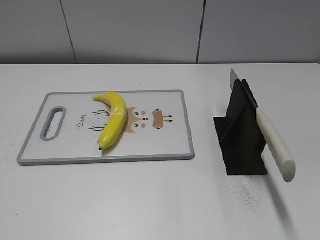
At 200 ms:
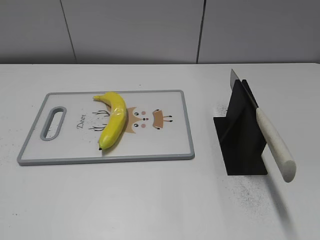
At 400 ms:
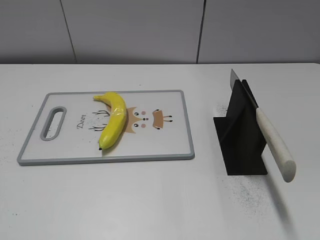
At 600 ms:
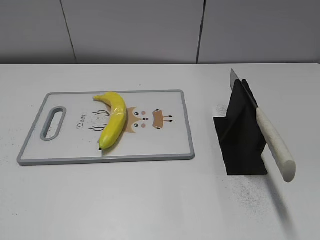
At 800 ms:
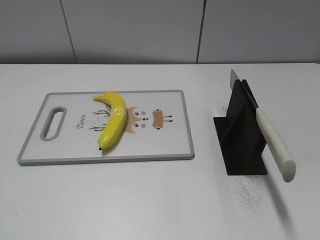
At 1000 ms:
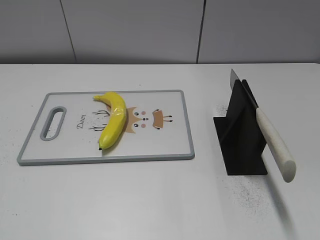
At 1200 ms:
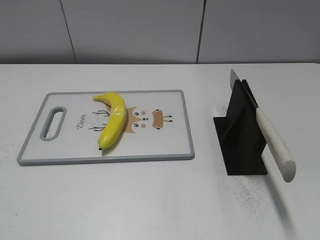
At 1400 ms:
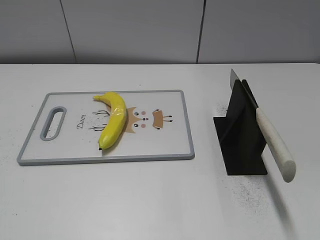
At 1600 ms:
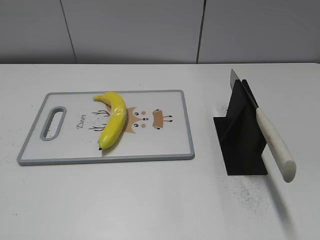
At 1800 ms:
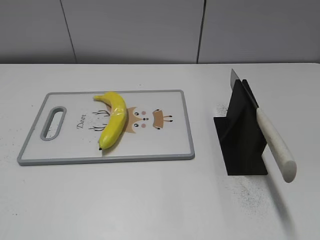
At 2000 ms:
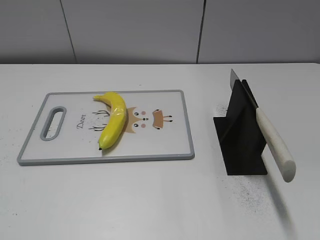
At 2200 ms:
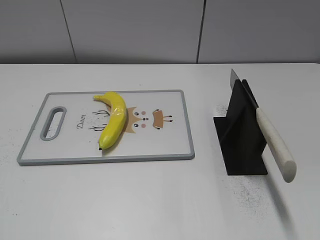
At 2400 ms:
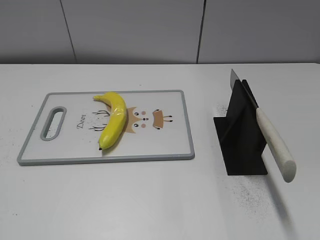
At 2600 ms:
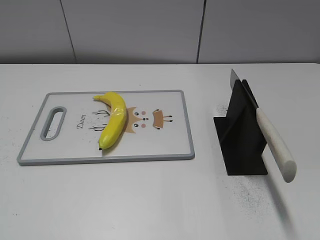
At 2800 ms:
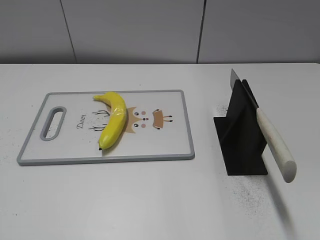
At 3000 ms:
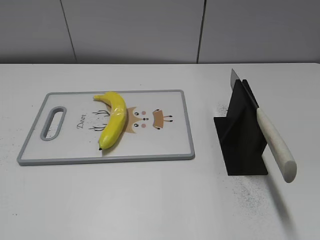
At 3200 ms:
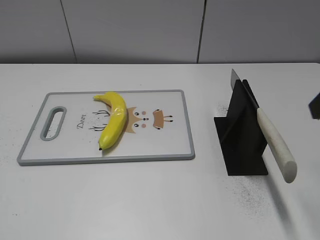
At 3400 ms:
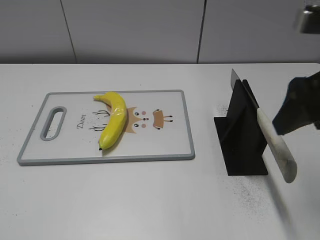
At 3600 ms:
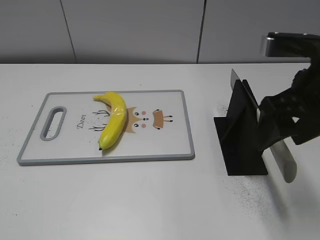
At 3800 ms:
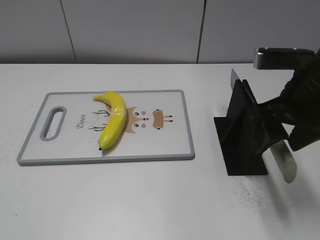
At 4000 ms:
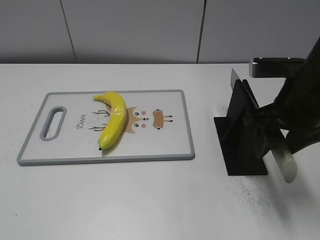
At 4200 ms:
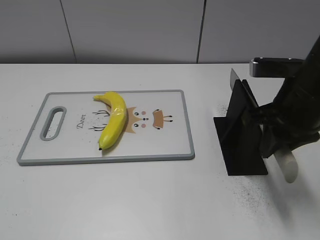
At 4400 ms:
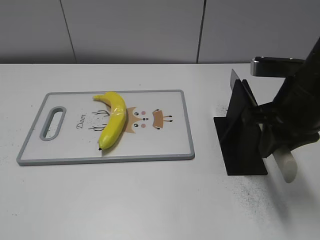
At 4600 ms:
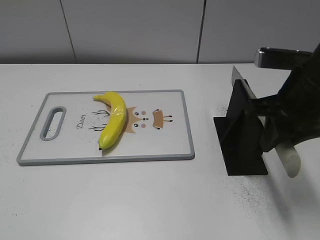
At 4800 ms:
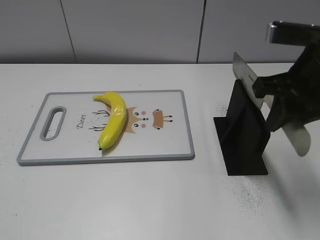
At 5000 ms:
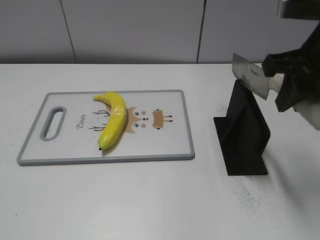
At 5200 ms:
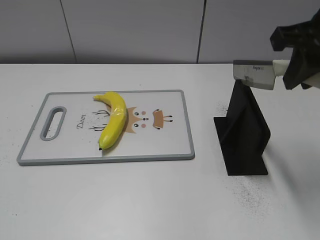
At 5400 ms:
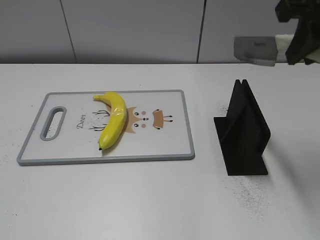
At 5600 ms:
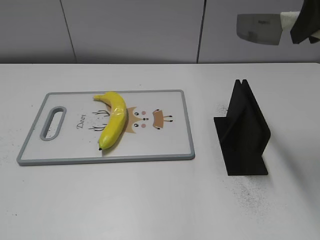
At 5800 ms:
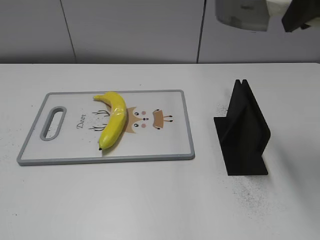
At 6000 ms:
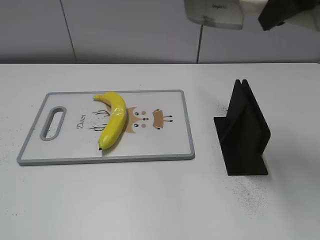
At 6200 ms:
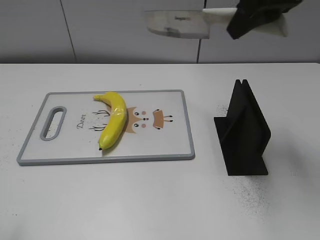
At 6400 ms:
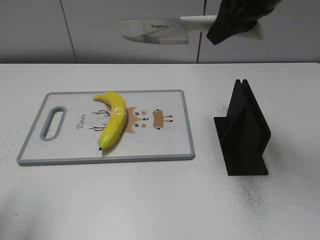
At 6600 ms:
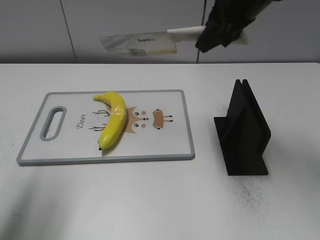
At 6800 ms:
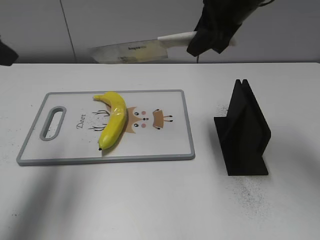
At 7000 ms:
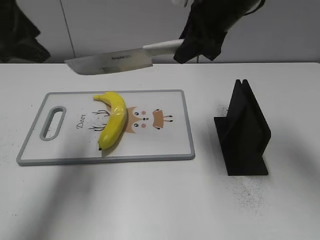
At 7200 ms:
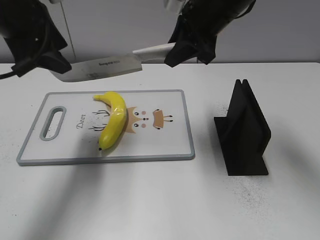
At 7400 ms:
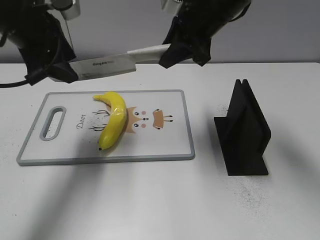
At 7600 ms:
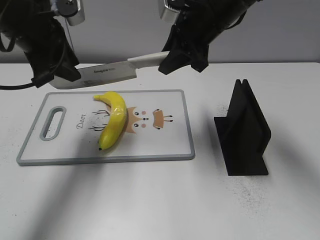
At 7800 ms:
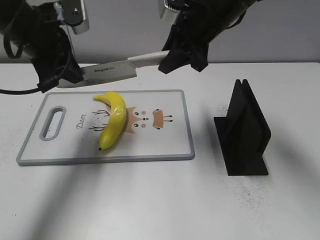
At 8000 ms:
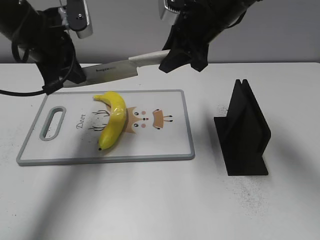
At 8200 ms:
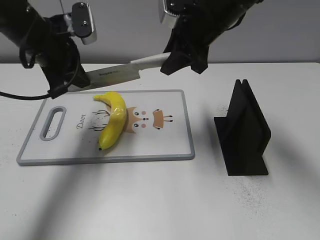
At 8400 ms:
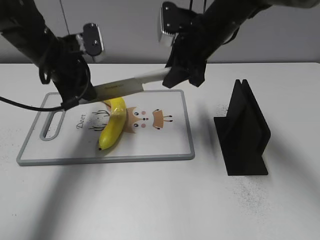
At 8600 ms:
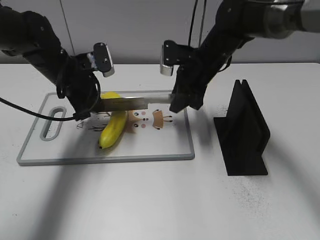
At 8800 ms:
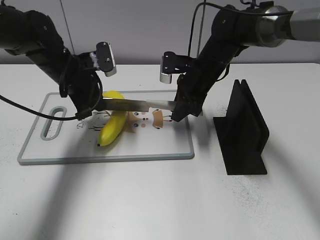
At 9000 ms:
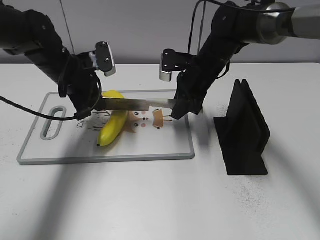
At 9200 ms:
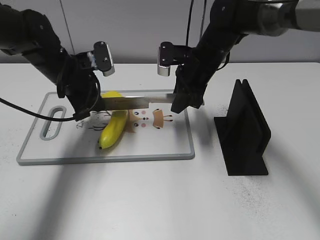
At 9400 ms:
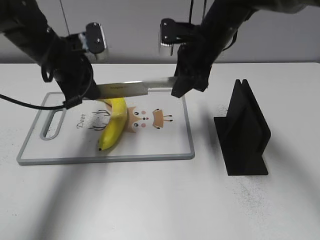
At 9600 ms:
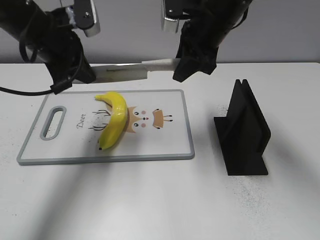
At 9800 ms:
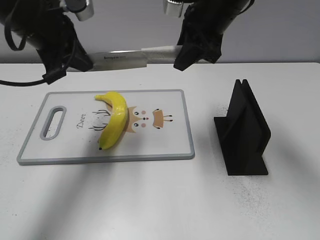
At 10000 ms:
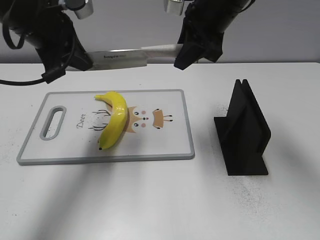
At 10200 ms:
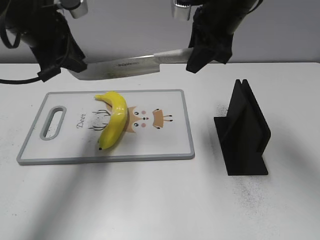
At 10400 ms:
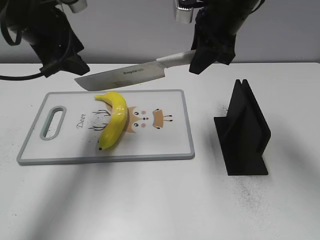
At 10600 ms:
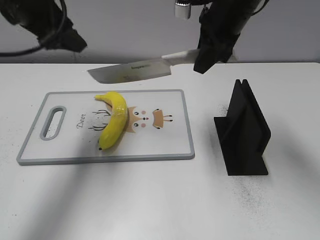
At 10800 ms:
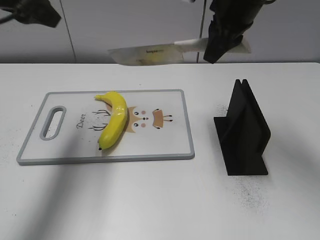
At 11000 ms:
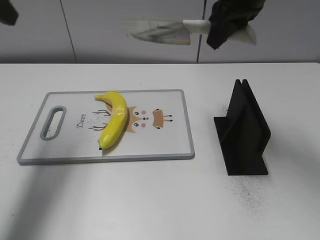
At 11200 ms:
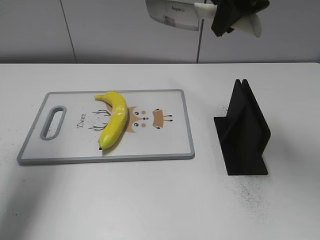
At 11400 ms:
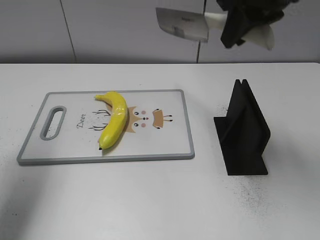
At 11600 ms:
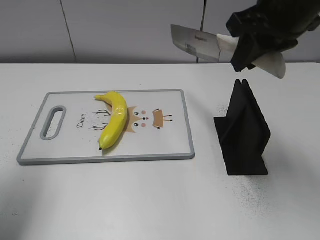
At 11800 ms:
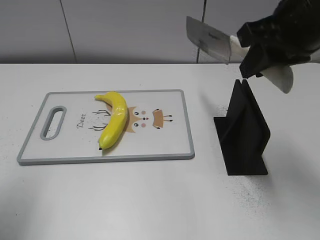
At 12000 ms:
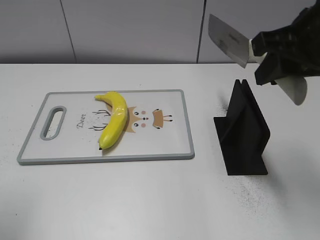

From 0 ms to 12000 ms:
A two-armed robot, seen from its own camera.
Task of the whole recording: cut plastic banana.
Step, from 0 ms to 5200 ms: Grab the knife handle with your right hand.
Step, from 5400 ms to 9600 ms: Lift the knife with your right hand.
Step, from 9800 ms to 11200 ms: Cut the banana with your right hand.
From 3000 ms to 4400 ms: The right gripper travels downward, to the left and forward by about 15 cm, and closes.
From 4400 ms to 6000 ms: The right gripper travels upward by some 15 cm.
From 6000 ms to 7600 ms: The right gripper is displaced downward, forward and to the left by some 20 cm; the left gripper travels forward by roughly 30 cm.
From 7600 ms to 9000 ms: The left gripper shifts some 15 cm downward and forward, and closes its fingers; the right gripper heads downward, covering roughly 15 cm.
From 9000 ms to 10400 ms: The grippers both shift upward by roughly 15 cm. The left gripper opens up.
From 10400 ms to 12000 ms: The right gripper heads backward and to the right, covering about 15 cm; the left gripper moves backward and to the left, about 25 cm.

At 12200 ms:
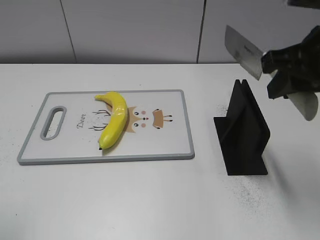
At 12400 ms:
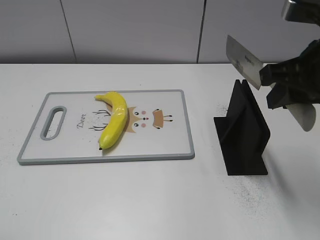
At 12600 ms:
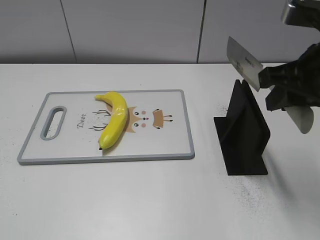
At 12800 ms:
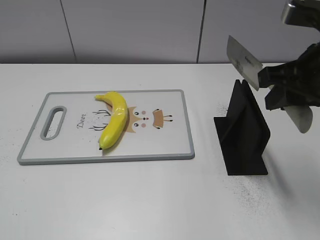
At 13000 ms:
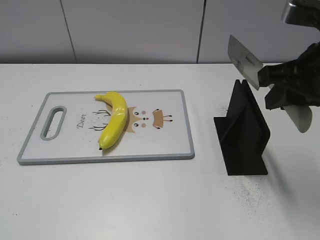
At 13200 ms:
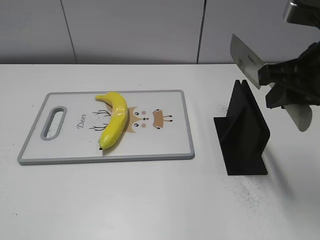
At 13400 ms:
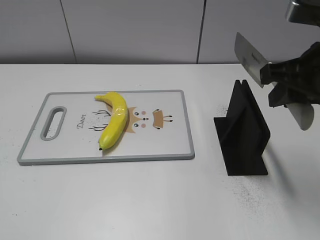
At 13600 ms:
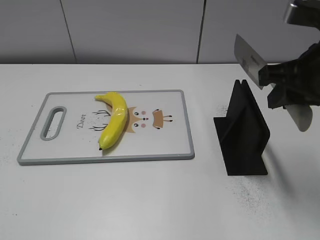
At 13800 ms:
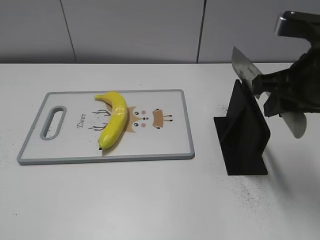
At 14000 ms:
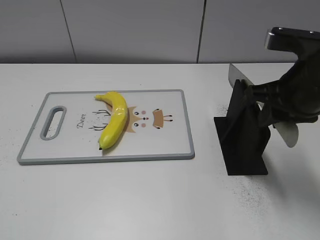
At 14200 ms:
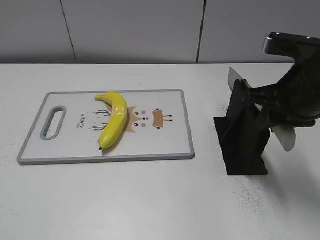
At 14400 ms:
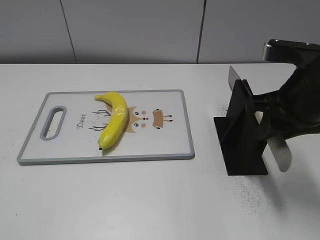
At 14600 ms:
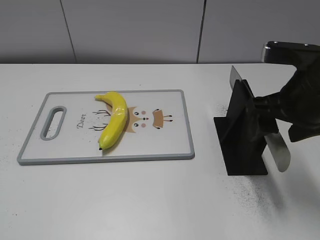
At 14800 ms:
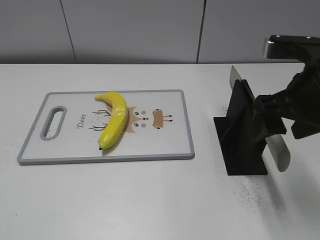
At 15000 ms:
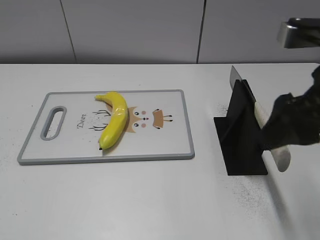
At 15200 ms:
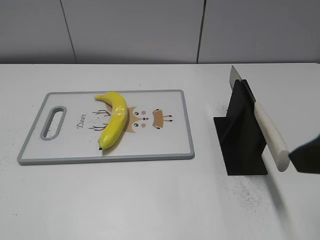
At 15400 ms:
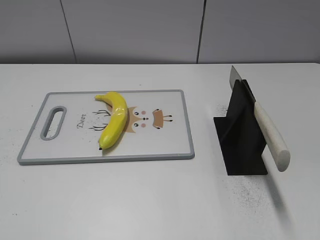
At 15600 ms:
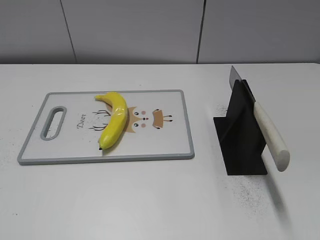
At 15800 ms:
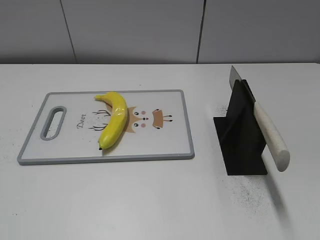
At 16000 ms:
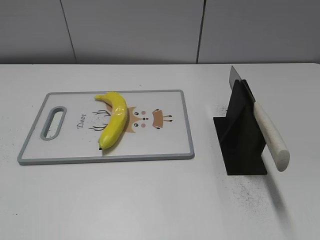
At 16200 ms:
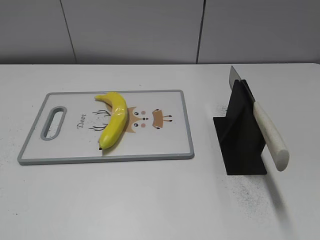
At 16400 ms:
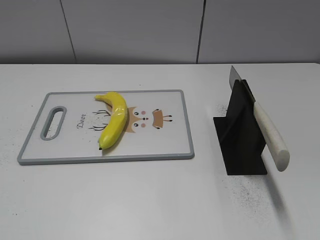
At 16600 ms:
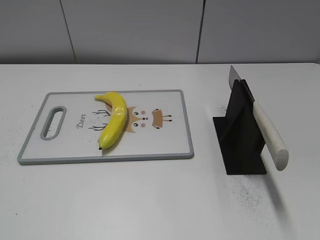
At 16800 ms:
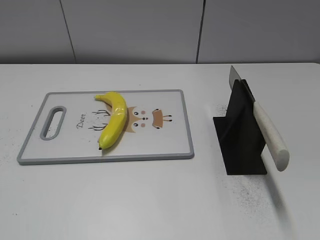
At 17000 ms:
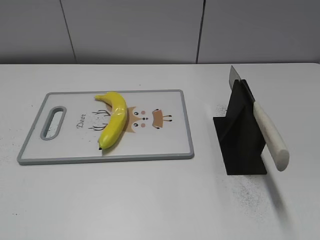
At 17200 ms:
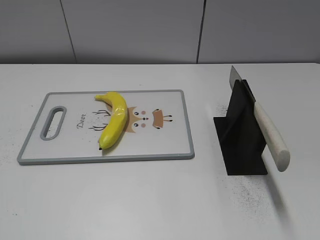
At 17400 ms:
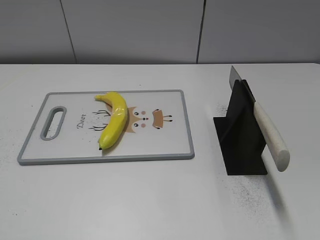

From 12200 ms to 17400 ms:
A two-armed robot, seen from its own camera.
Task of the whole recording: cut plastic banana.
Step, from 12800 ms to 17400 ms: Place the knife on the storage rack with your right hand.
From 12200 ms to 14000 ms: The right gripper travels downward by about 5 cm.
From 14000 ms to 15600 ms: The right gripper is displaced backward by some 20 cm, and opens.

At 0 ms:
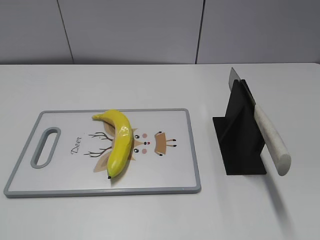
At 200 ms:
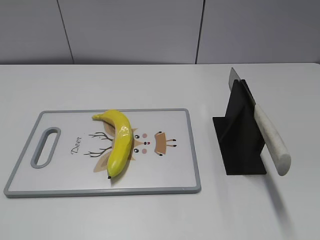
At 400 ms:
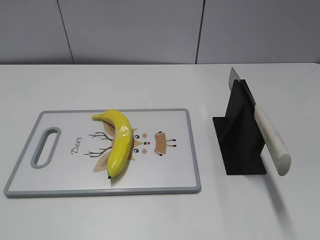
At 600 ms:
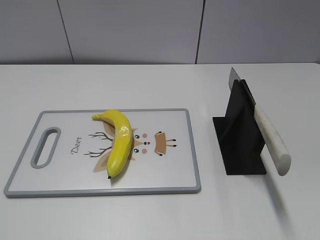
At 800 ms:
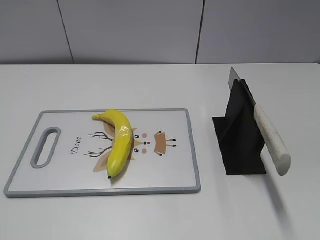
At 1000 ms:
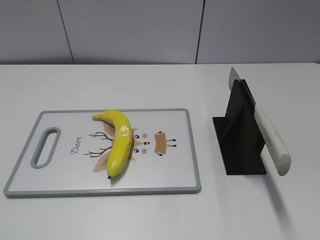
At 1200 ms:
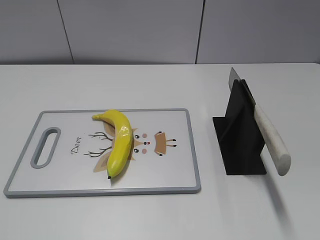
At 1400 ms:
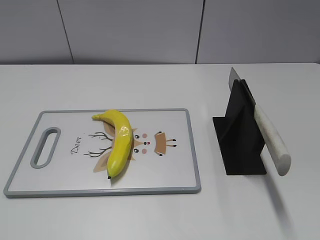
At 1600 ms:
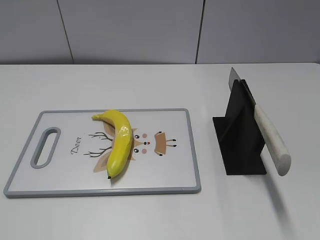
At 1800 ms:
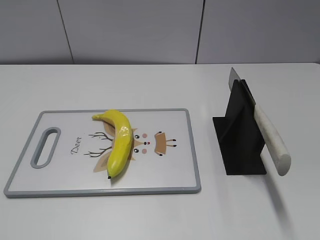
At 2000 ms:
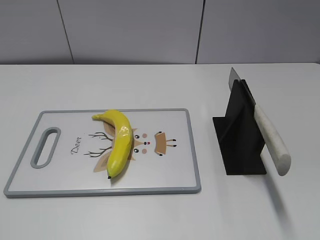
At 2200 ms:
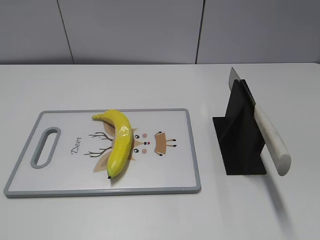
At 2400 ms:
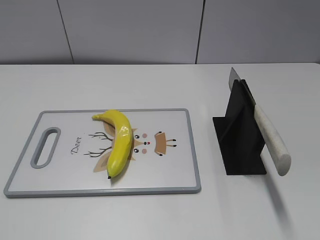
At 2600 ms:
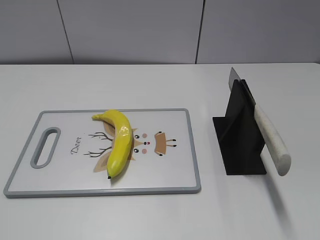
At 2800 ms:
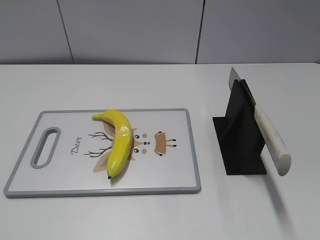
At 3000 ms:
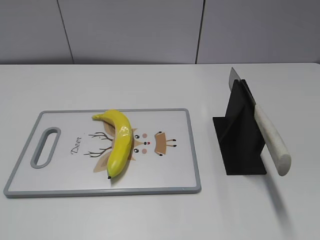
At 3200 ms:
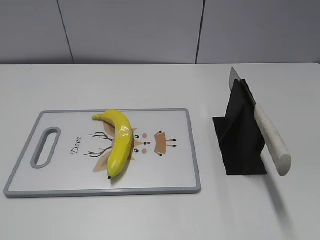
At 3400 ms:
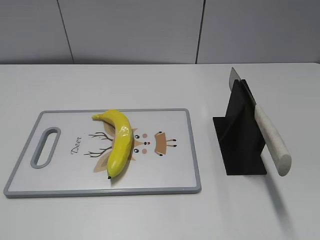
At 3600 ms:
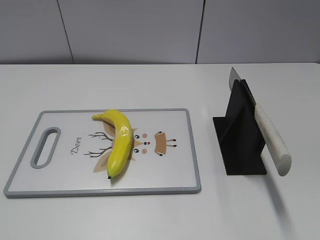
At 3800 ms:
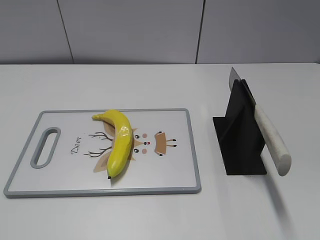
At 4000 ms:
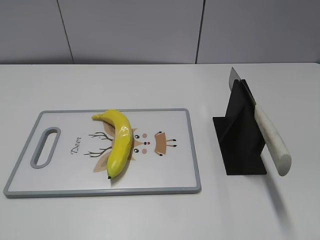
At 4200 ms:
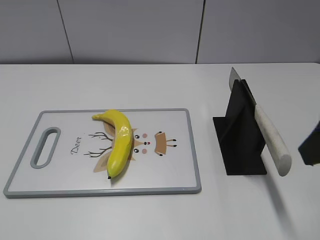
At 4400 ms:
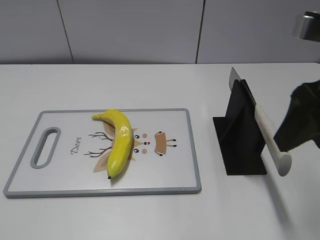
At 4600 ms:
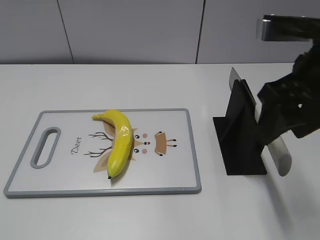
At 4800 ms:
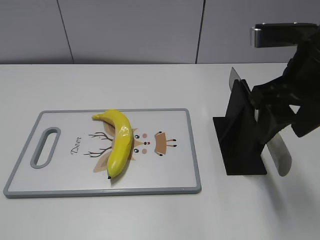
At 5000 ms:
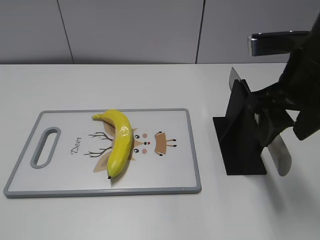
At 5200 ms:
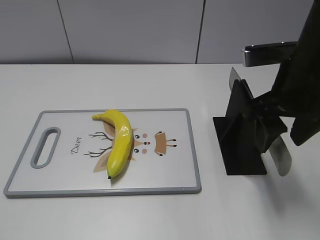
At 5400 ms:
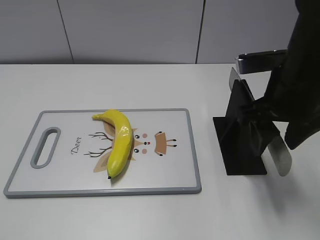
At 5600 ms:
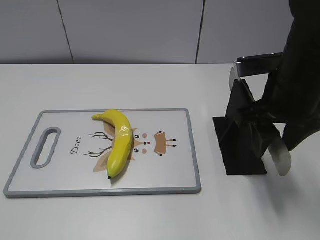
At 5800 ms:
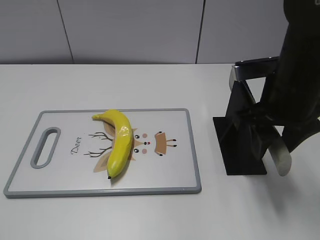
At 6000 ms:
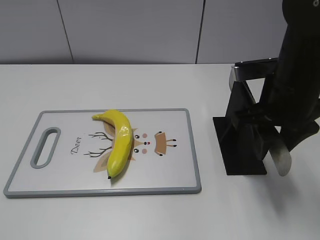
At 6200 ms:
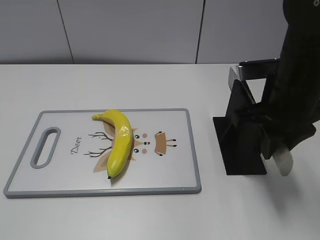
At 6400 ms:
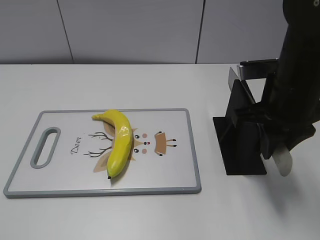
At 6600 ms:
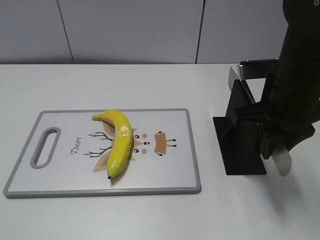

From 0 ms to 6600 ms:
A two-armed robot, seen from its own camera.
Task of the whole recording: cut plastic banana.
From 3200 ms to 5000 ms: The right gripper goes approximately 20 cm forward and to the left.
From 5000 ms to 6600 ms: The right gripper closes its fingers.
